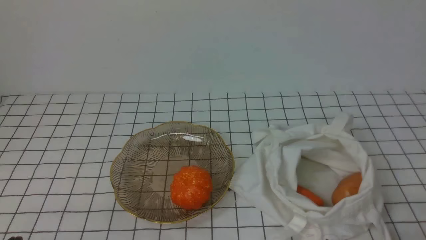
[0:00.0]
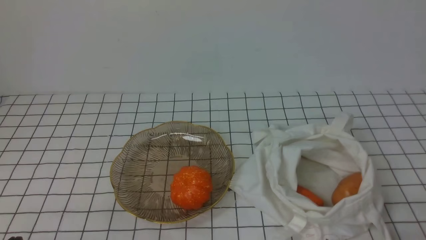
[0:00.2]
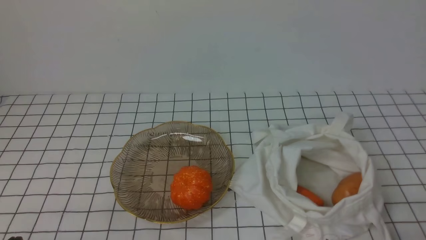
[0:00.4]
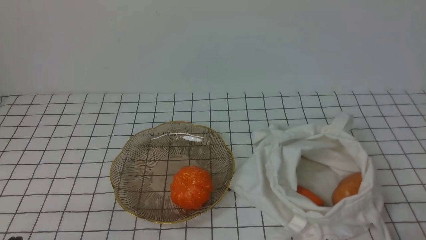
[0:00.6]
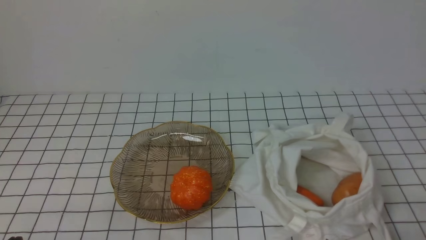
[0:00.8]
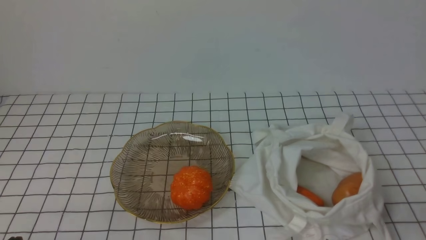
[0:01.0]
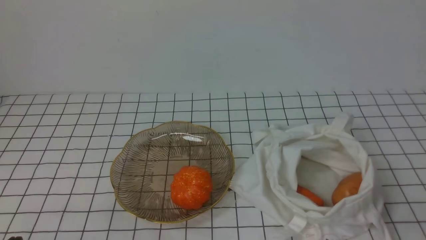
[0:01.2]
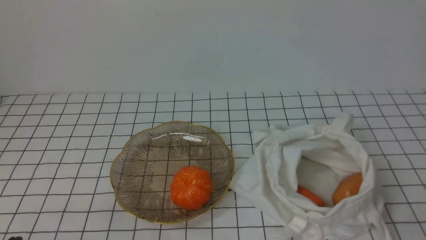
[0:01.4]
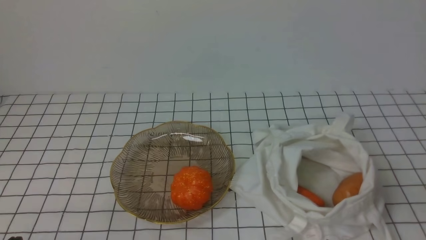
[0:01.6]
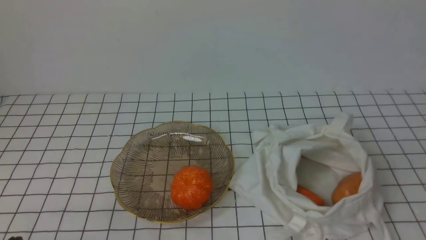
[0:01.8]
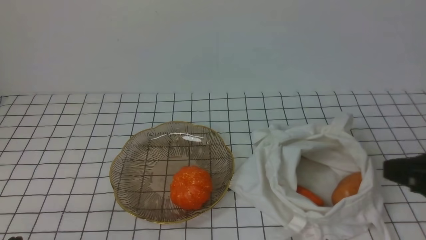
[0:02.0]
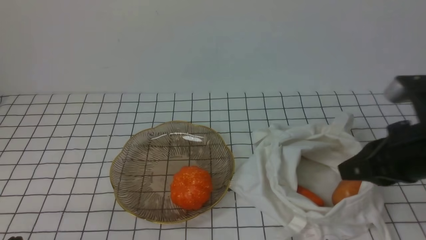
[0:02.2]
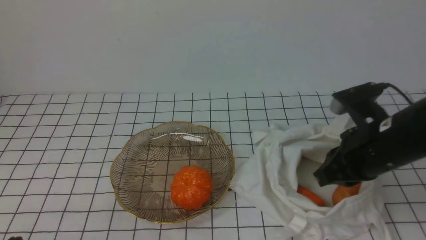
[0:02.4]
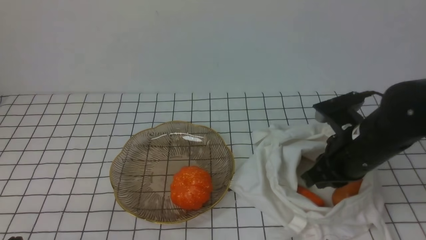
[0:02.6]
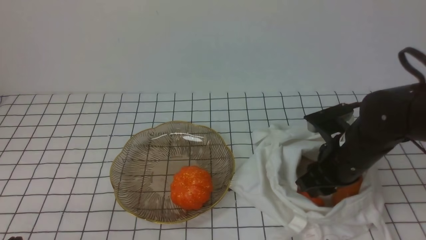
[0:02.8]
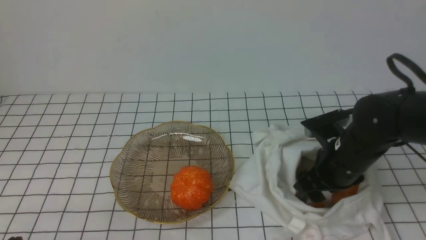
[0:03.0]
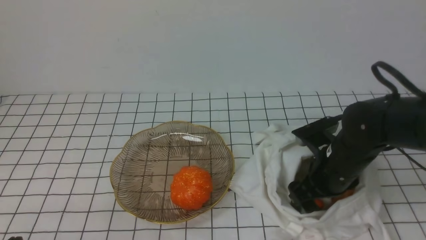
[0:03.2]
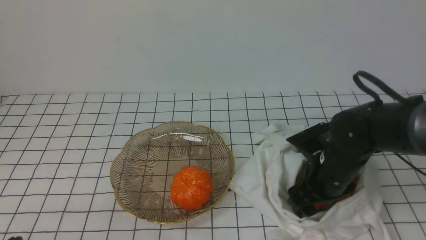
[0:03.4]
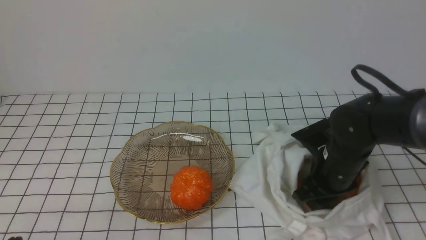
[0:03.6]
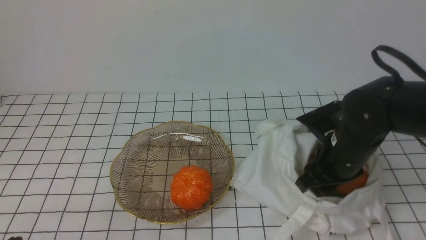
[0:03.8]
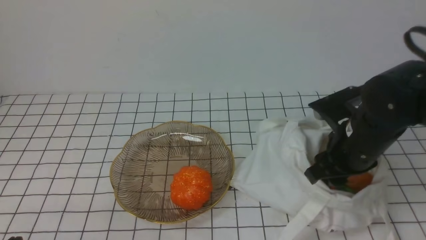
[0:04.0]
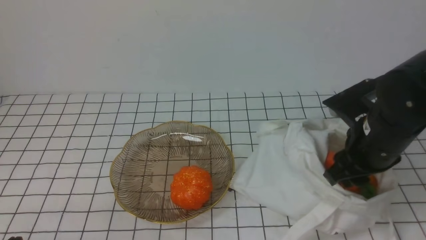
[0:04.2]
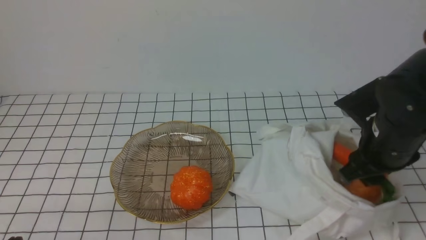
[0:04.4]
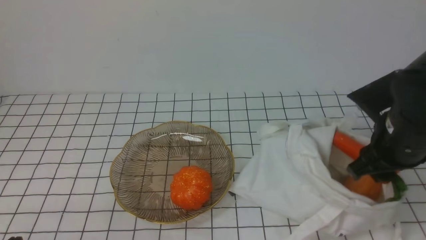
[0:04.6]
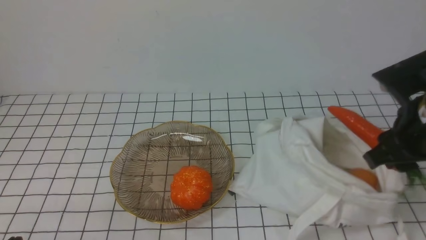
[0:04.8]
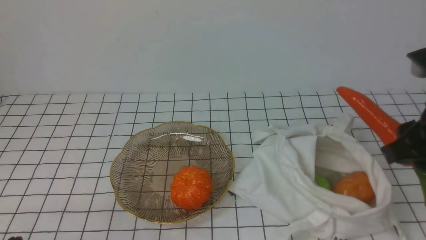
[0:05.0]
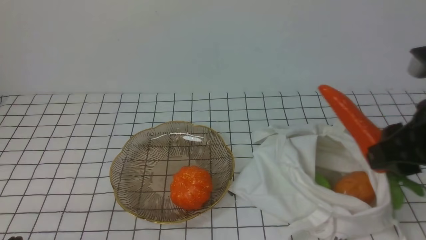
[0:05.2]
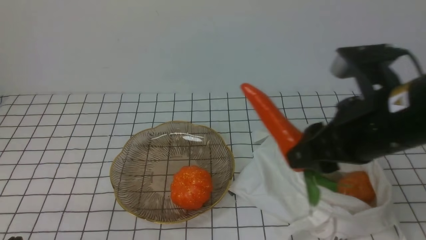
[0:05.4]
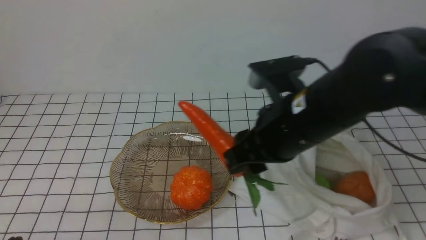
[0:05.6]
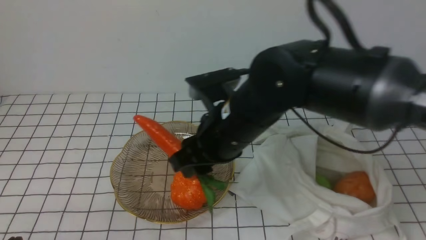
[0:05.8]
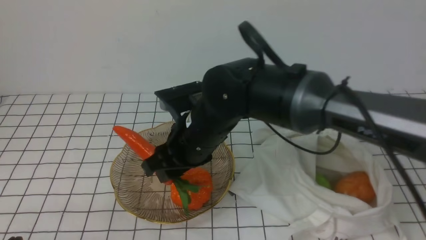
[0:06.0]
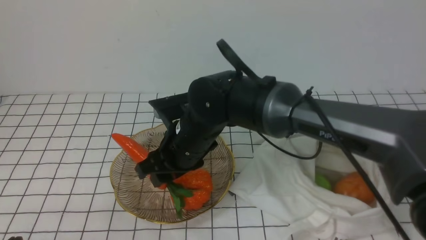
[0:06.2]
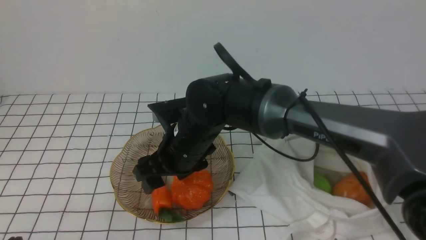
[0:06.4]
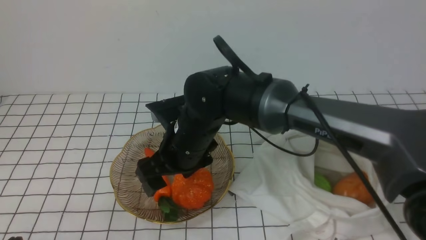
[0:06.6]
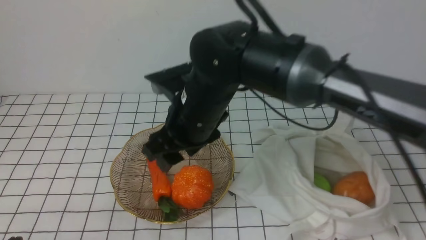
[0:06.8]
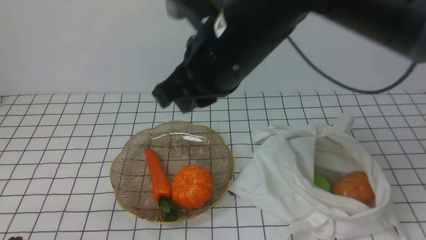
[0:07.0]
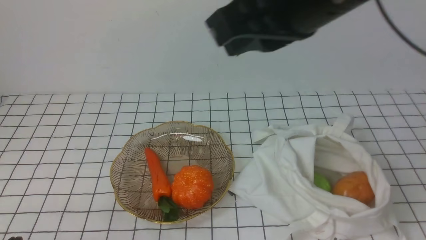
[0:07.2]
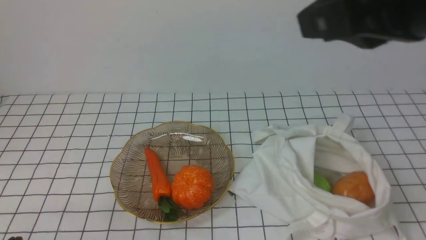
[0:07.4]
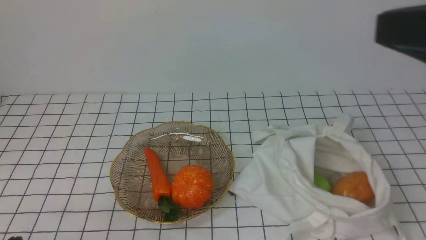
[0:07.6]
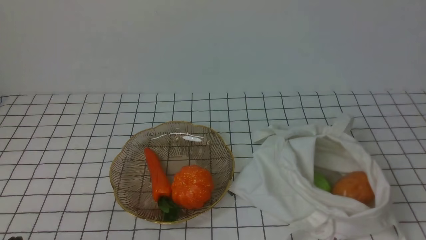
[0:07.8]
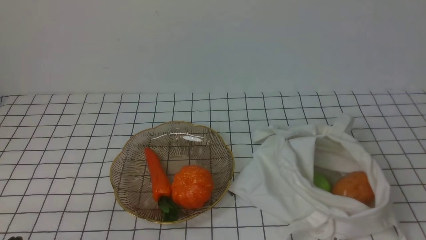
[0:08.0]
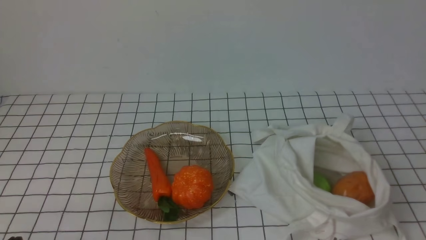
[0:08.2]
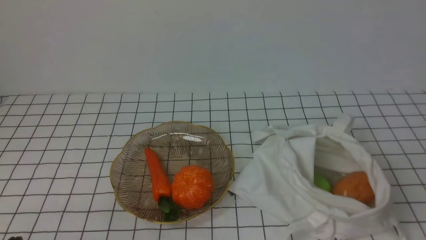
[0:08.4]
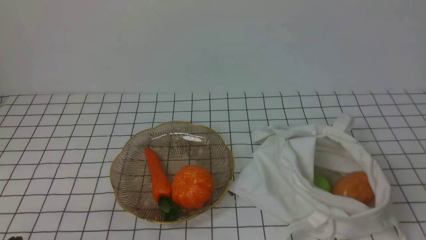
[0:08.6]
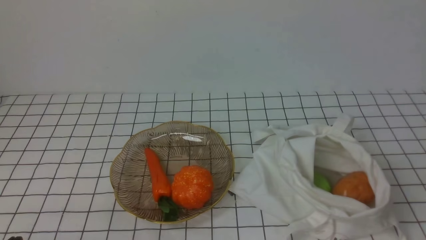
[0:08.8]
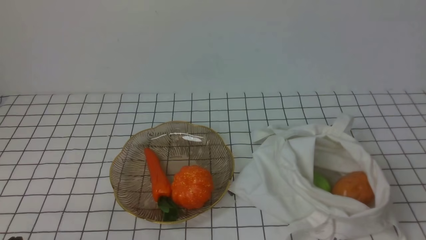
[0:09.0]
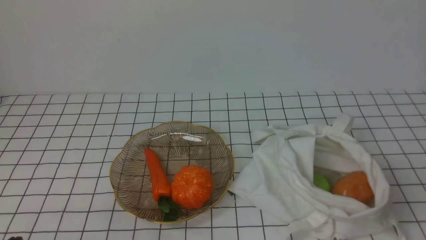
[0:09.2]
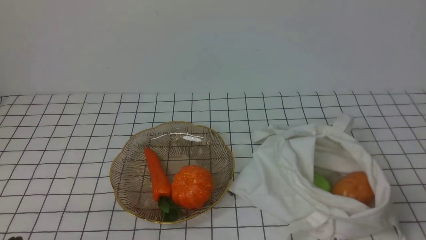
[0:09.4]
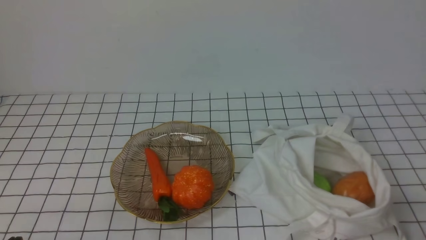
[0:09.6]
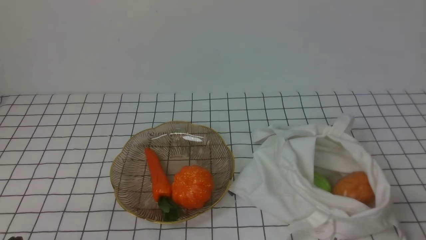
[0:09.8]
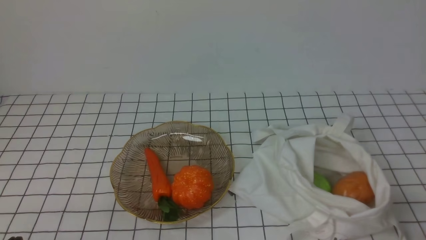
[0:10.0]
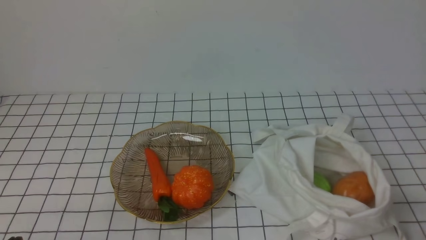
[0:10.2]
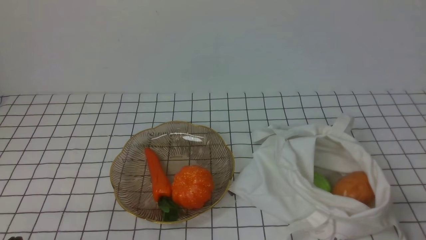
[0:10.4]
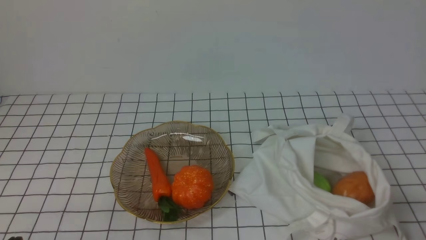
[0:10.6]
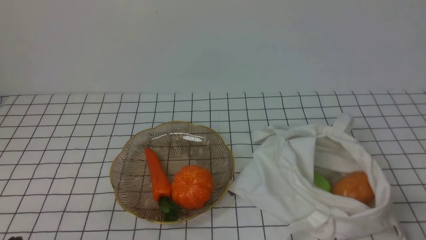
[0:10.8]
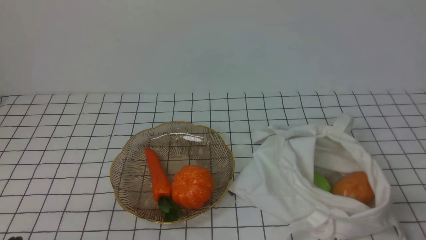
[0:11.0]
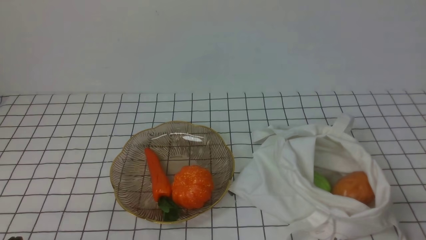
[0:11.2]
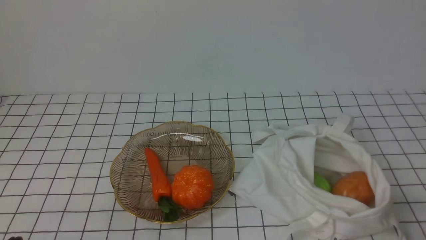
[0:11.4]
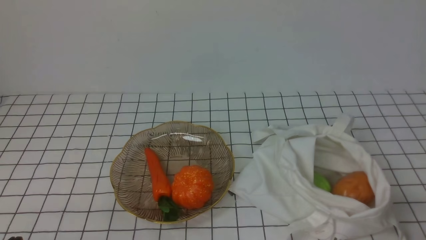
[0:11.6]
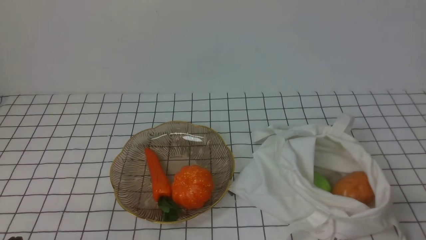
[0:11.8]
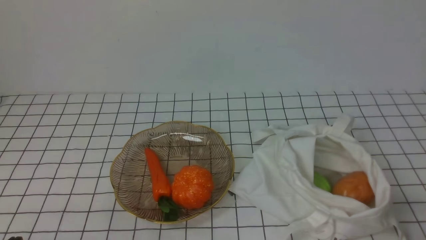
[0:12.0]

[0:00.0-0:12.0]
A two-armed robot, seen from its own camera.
Task of the whole recording: take vegetables from bag on white checkered tablecloth place on plate.
Step, 0:00.0 to 0:03.6: Grasp the carrot with right gripper.
Step, 0:03.8 to 0:06.6: Place the carrot on the plate with right gripper.
0:01.6 to 0:03.0: The right gripper goes some 25 cm forward and to the left, and opens.
0:03.0 to 0:04.4: The right gripper goes roughly 10 cm upward.
0:04.4 to 0:06.0: The right gripper moves to the left, roughly 25 cm.
0:06.0 to 0:07.6: The right gripper moves to the right, upward and backward, approximately 35 cm, and closes up.
0:07.6 to 0:09.0: The right gripper is displaced downward, backward and to the right by some 20 cm.
0:10.4 to 0:12.0: The two grippers keep their place.
